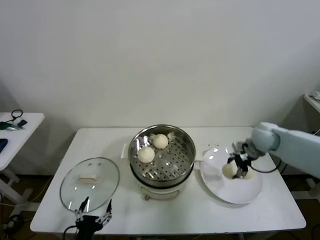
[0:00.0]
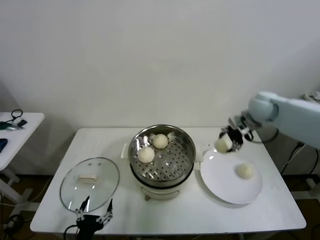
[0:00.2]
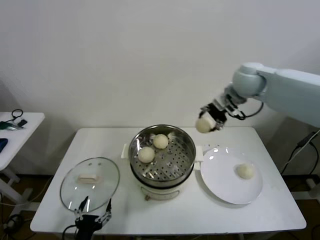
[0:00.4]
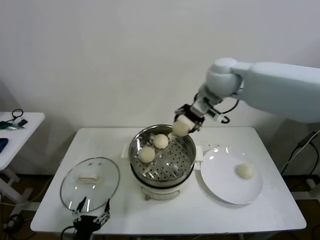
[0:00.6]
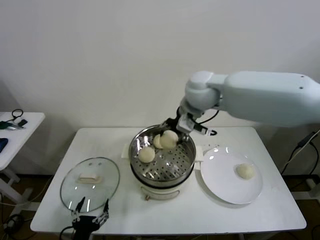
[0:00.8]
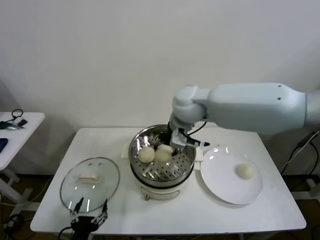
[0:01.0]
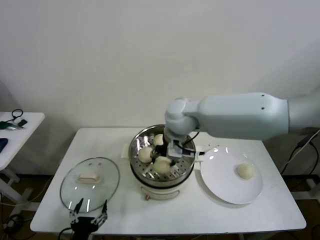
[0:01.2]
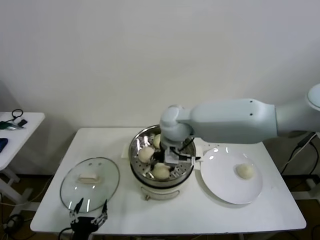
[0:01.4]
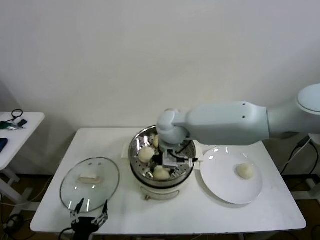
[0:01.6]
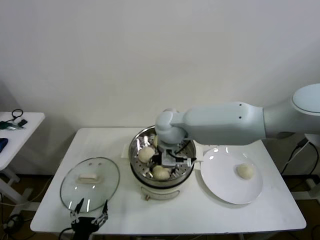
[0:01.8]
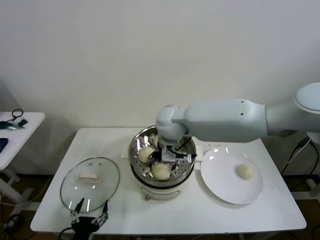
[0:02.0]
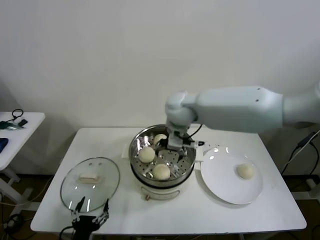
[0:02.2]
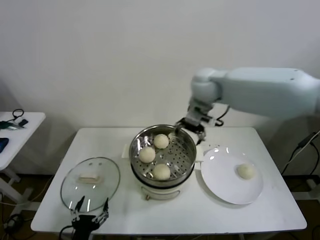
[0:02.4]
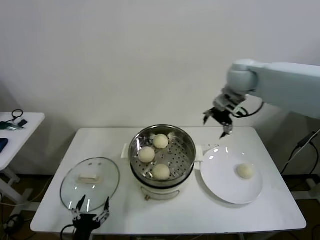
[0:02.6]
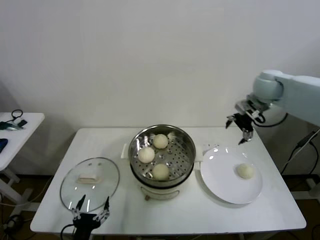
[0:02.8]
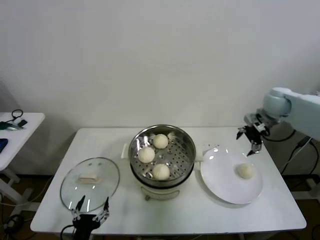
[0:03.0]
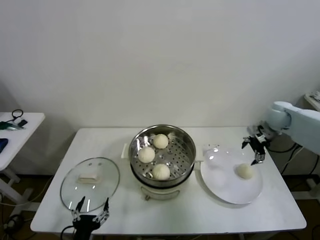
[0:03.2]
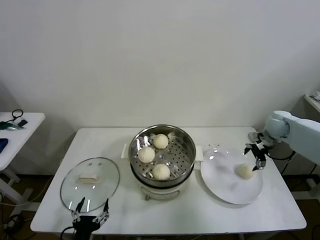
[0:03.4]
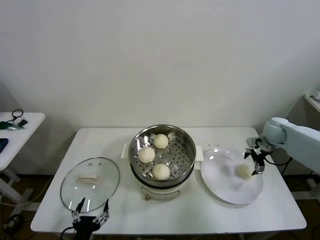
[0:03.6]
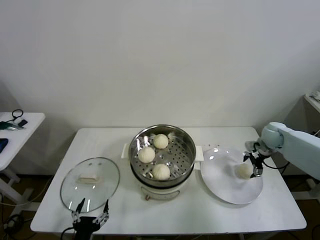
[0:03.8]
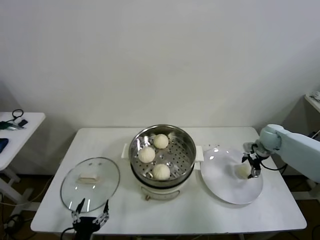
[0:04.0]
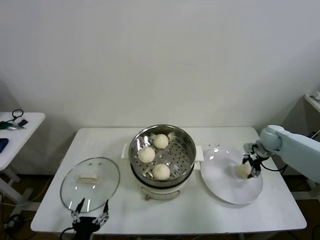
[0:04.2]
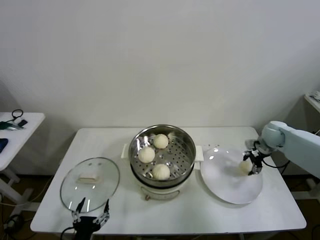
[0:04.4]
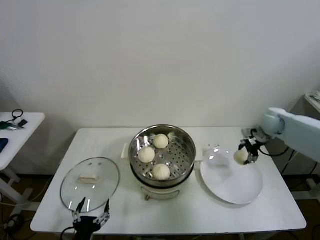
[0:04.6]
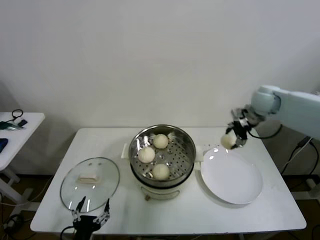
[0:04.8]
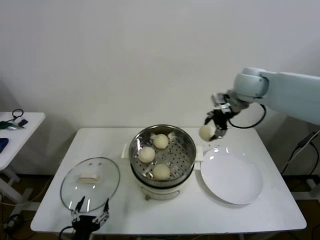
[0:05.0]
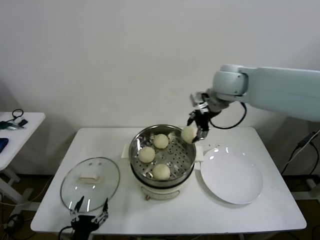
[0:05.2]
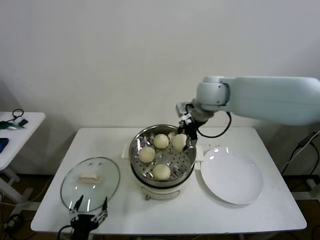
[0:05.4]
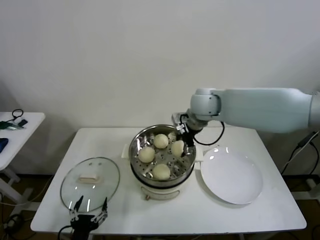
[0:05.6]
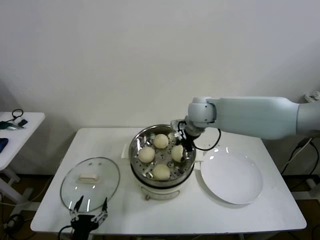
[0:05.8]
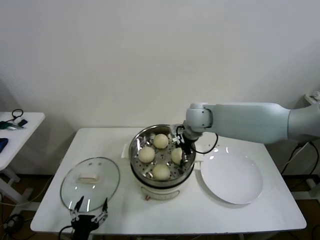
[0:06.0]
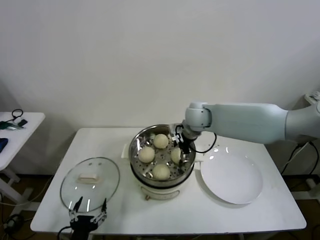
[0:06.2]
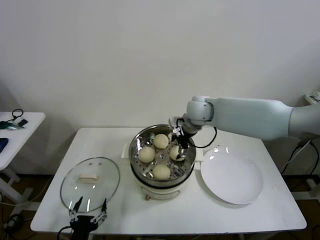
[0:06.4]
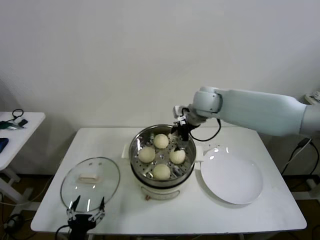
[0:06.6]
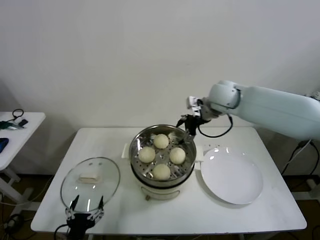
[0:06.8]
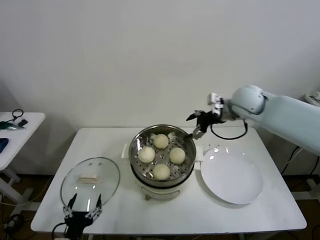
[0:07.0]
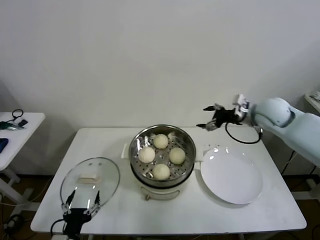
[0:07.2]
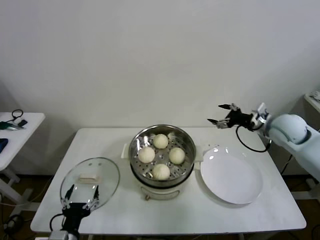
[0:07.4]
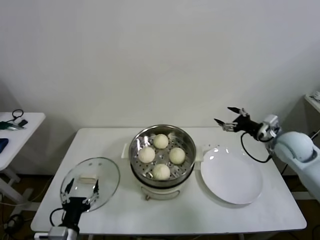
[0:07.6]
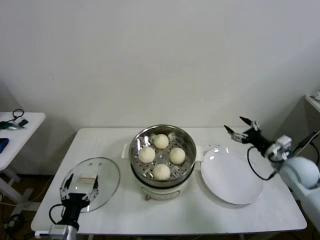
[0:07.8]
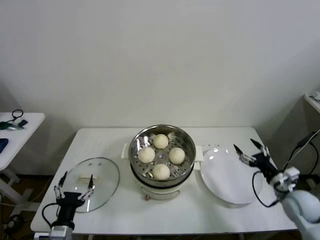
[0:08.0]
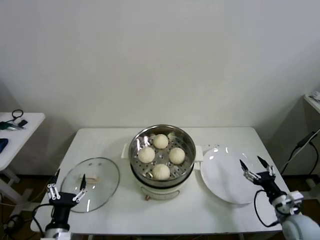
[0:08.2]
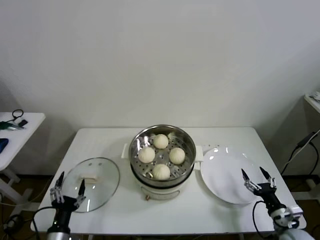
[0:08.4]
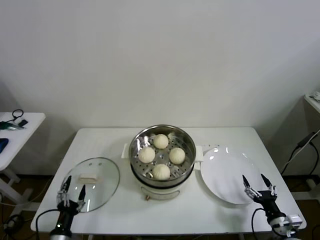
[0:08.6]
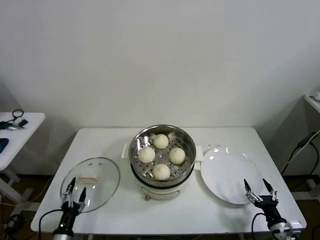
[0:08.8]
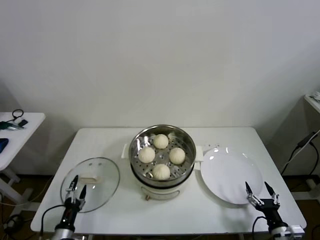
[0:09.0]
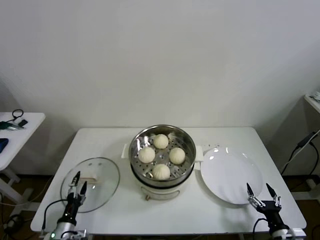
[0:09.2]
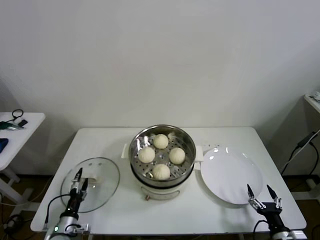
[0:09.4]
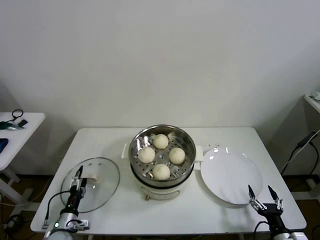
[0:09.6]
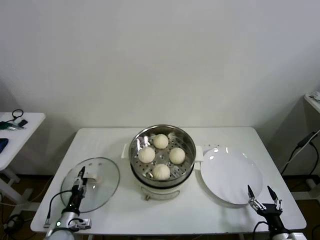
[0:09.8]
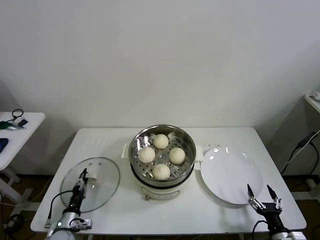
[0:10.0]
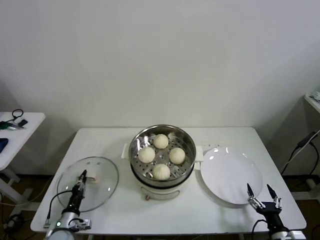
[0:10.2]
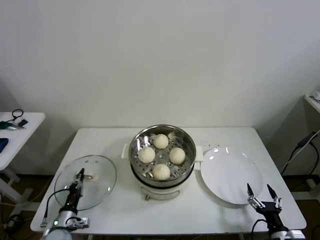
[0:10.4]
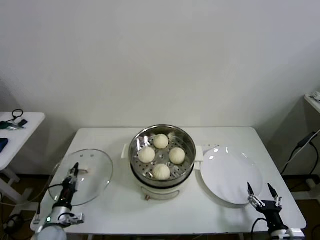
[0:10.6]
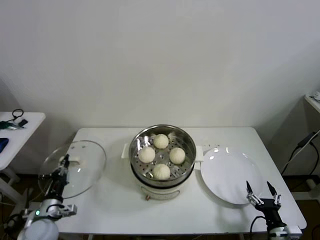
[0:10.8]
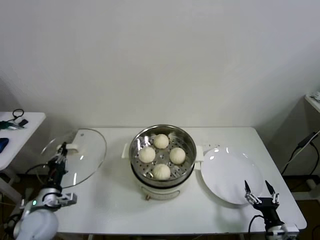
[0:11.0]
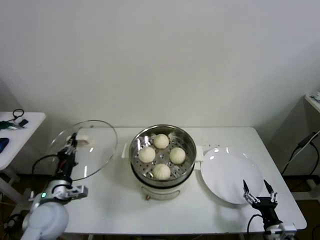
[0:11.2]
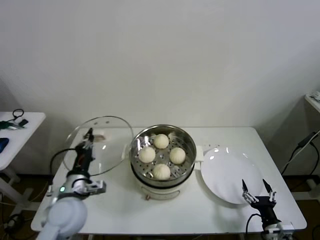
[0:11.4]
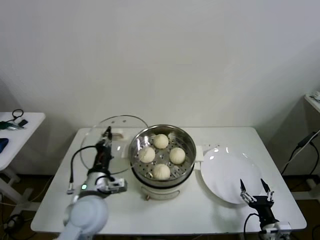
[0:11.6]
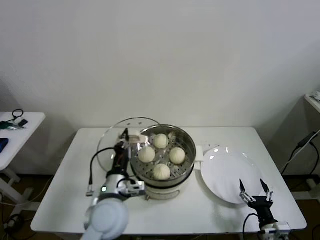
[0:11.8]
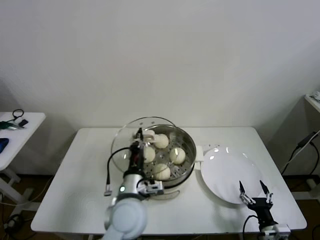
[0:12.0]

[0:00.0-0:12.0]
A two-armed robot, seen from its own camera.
Task of the whole recording: take steamed baozi put them in steamer then cover it.
Step, 0:00.0 to 0:01.8: Place the baozi on the steamer with right gripper.
Step, 0:02.0 to 0:04.2: Grasp the baozi in the plate with right gripper.
Step, 0:04.4 to 0:06.2: Place the baozi on the steamer with right gripper.
Step, 0:06.4 to 0:10.4: Grasp the pot lid with left gripper.
0:00.0 to 0:01.6: The right gripper travels to the left by about 35 cm.
0:01.6 to 0:03.0: The right gripper travels to the right by roughly 35 cm, and opens its fingers.
0:03.0 to 0:04.4: The right gripper moves downward, approximately 15 cm, and closes.
0:04.4 to 0:06.0: The right gripper travels to the left by roughly 30 cm.
0:06.0 to 0:07.6: The right gripper is displaced to the right by about 30 cm, and opens its fingers.
0:07.6 to 0:09.0: The right gripper is displaced backward and downward by roughly 35 cm. Meanwhile the left gripper moves downward and to the left, about 15 cm.
0:09.0 to 0:10.4: The left gripper shifts about 5 cm forward, and closes.
0:10.4 to 0:12.0: The left gripper travels to the right and upward by about 35 cm.

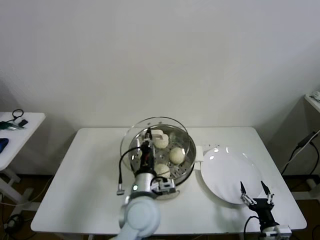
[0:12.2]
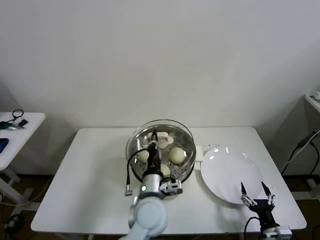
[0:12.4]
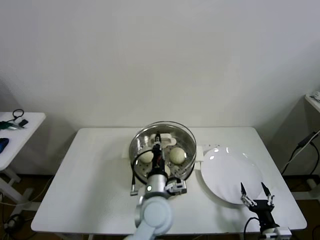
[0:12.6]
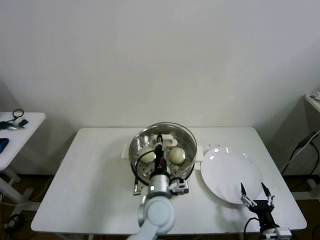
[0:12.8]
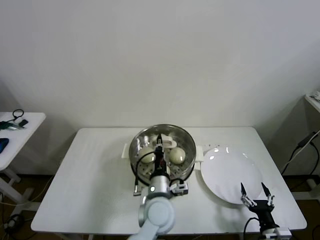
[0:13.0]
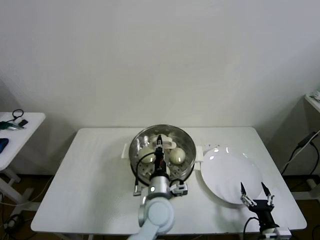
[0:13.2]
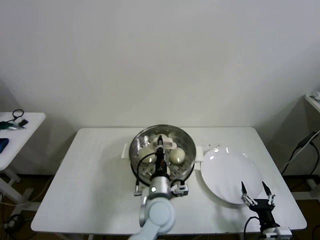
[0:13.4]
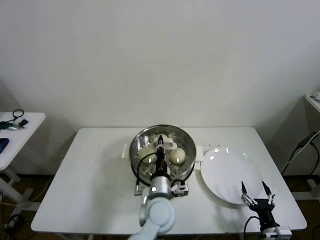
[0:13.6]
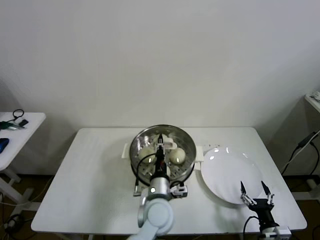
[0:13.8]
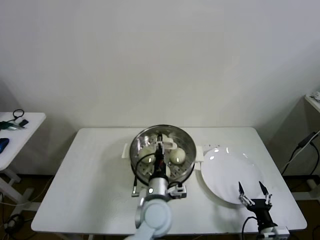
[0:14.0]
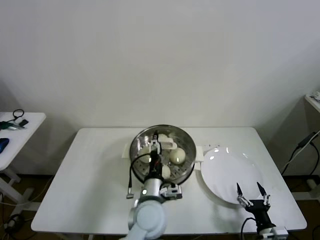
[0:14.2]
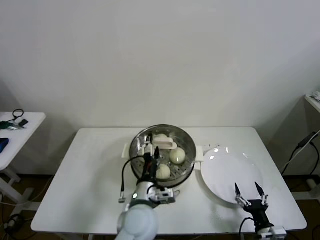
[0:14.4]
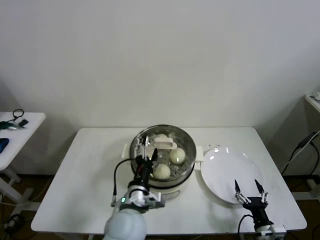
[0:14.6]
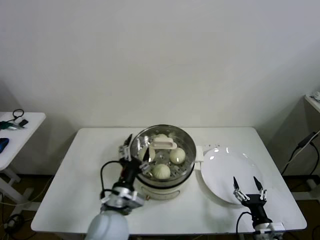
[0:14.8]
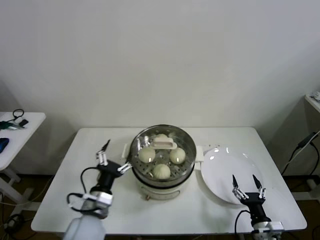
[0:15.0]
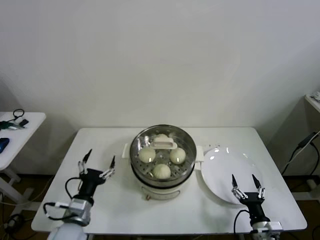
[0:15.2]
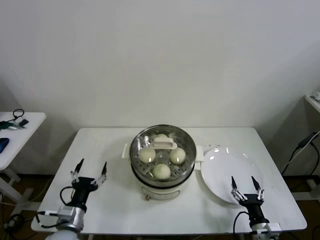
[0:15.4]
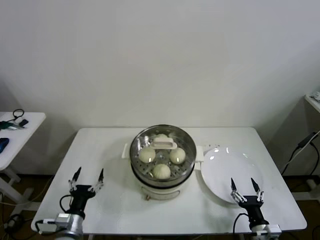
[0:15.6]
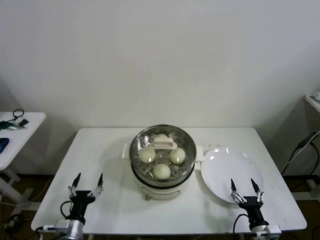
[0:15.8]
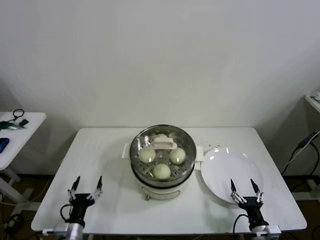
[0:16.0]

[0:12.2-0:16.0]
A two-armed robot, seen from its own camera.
Task of the whole recording: take steamed baozi put them in steamer then cover it.
Step, 0:12.2 to 0:14.0: Place the pot lid on the steamer with left gripper.
0:12.2 to 0:13.4: The left gripper goes some 10 cm downward and to the right.
0:13.4 to 0:14.8: The left gripper travels to the left by roughly 10 cm, and opens.
0:14.8 to 0:16.0: The left gripper travels to the left and downward by some 25 cm.
